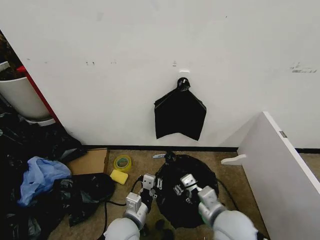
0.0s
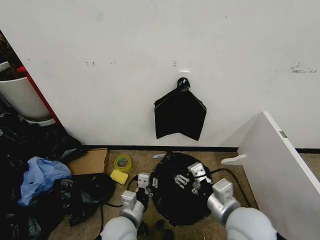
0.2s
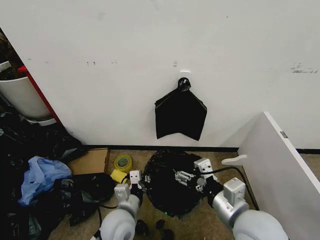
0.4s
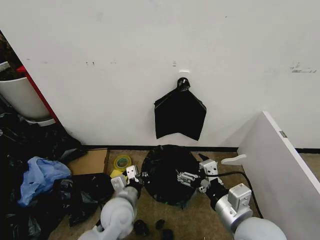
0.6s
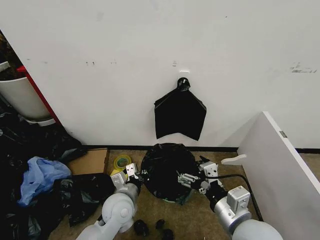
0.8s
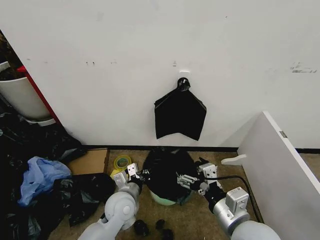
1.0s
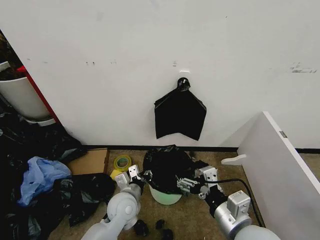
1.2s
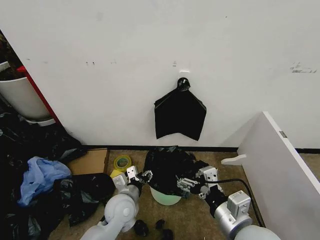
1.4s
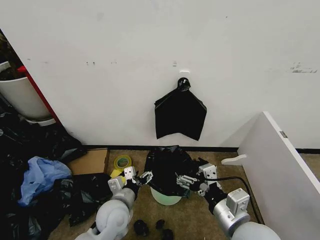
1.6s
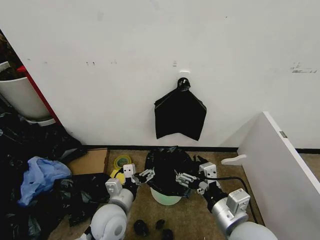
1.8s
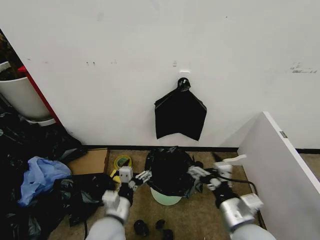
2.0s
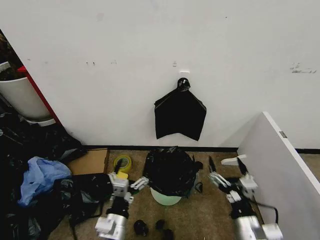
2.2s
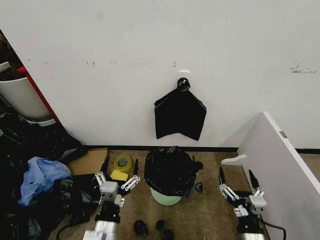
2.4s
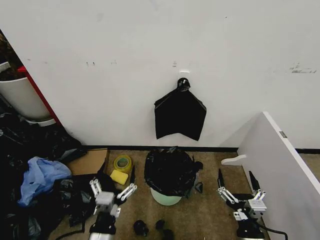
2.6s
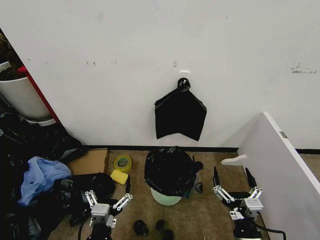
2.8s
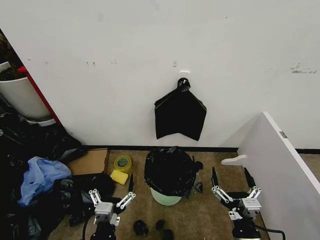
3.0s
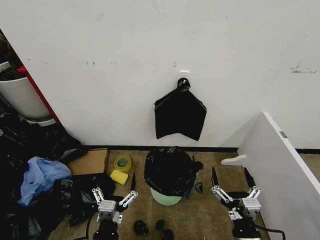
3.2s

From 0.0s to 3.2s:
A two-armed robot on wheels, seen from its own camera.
Task of the whole recording: Place the garbage bag over the trash bin.
From 0.0s to 1.6s: The right gripper is displaced upward by roughly 5 cm, and opens its fingers. The left gripper is displaced forward by approximately 5 cm, and opens.
From 1.6s to 3.2s: The left gripper is displaced backward by approximately 15 cm; the right gripper heads downward and backward, covering roughly 15 cm.

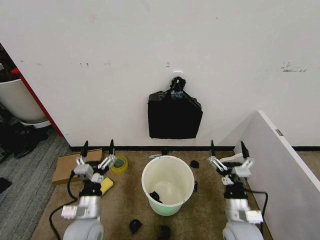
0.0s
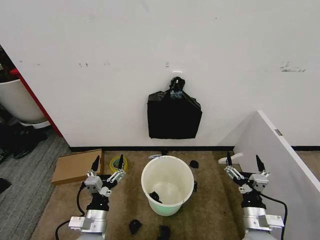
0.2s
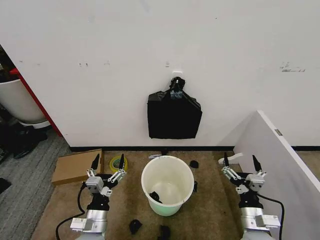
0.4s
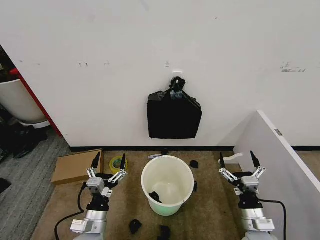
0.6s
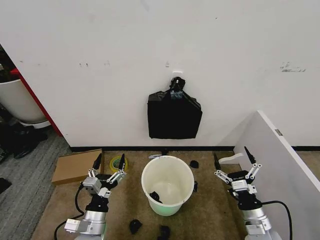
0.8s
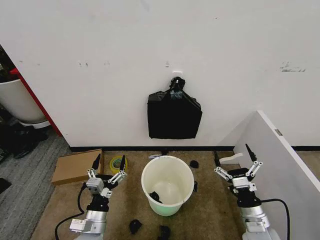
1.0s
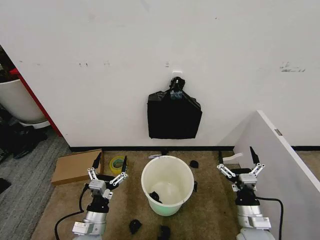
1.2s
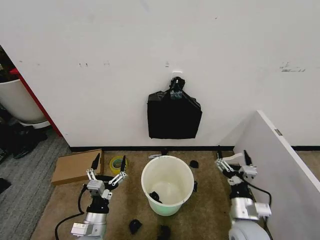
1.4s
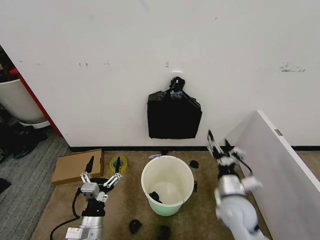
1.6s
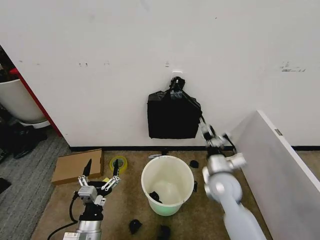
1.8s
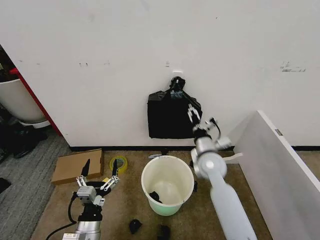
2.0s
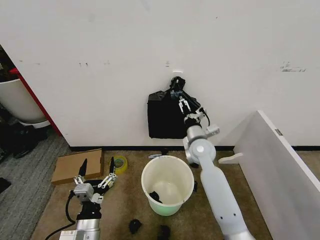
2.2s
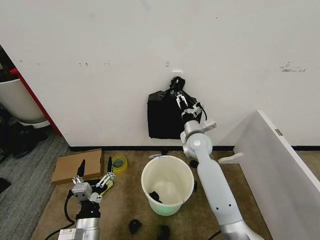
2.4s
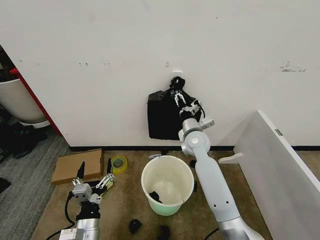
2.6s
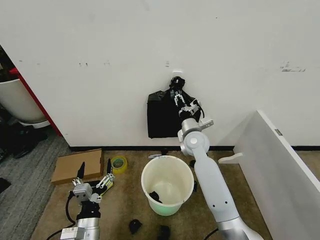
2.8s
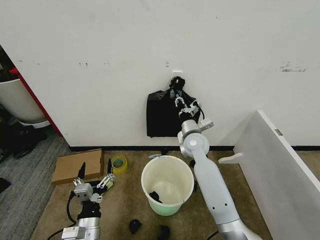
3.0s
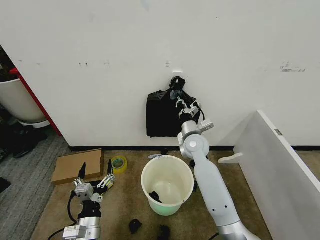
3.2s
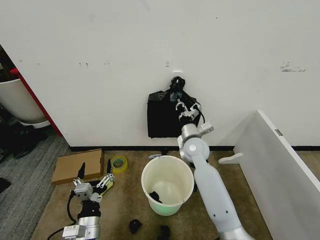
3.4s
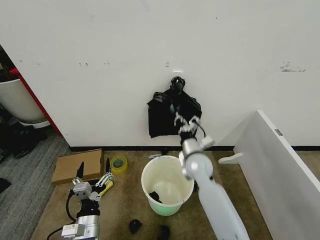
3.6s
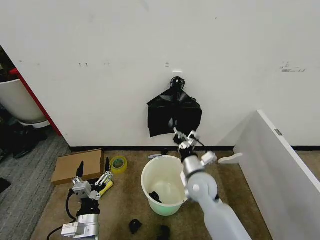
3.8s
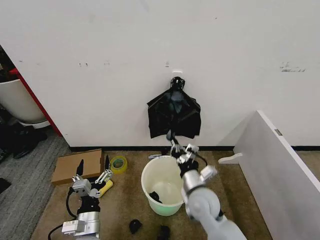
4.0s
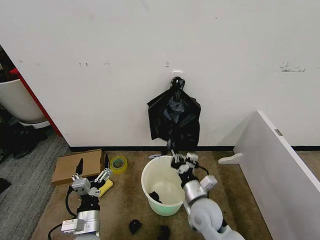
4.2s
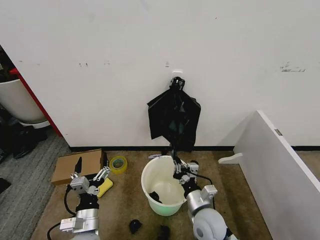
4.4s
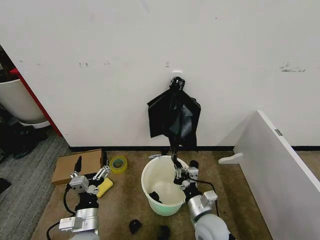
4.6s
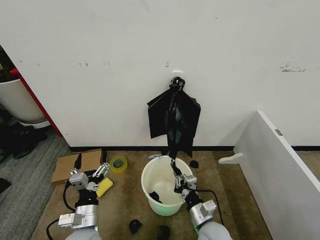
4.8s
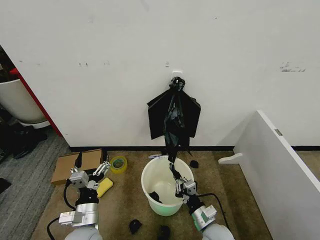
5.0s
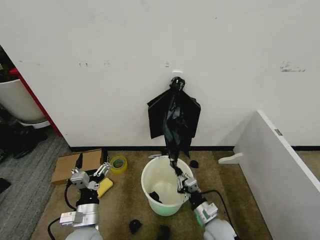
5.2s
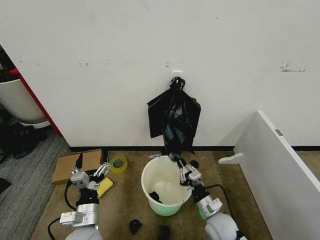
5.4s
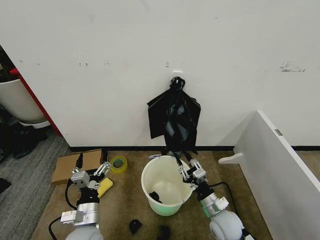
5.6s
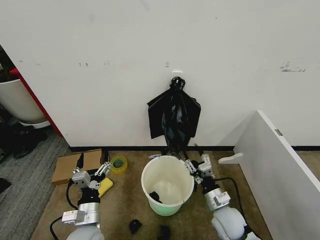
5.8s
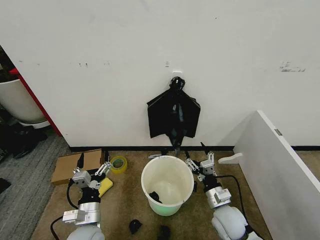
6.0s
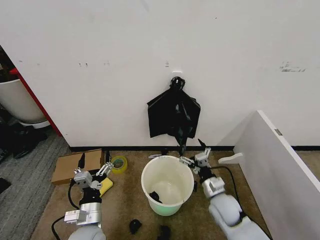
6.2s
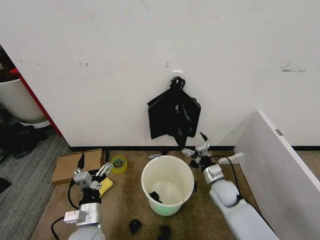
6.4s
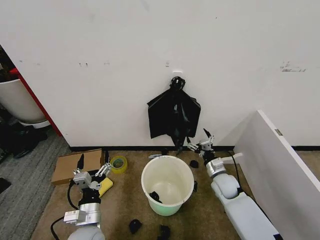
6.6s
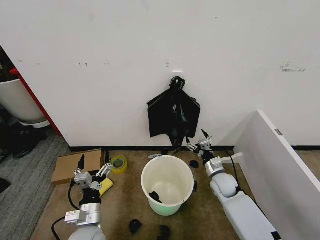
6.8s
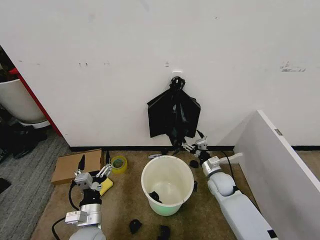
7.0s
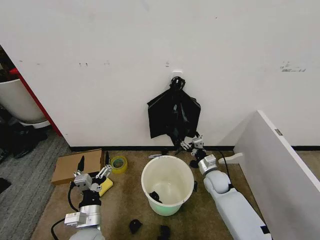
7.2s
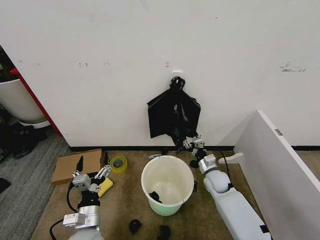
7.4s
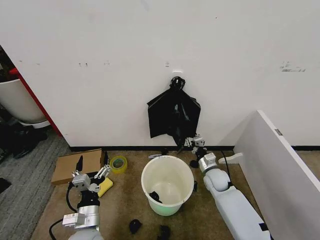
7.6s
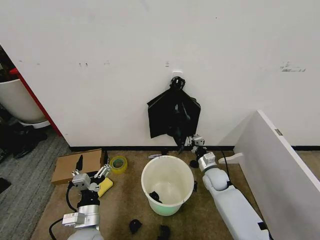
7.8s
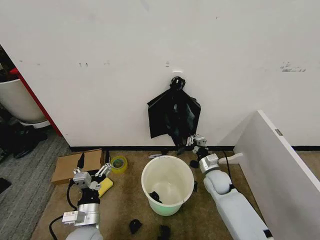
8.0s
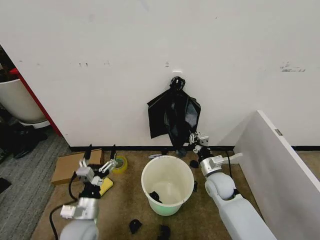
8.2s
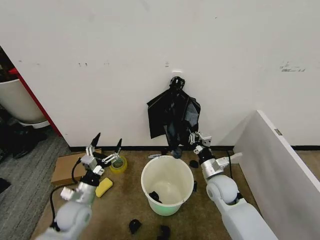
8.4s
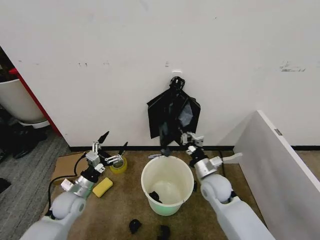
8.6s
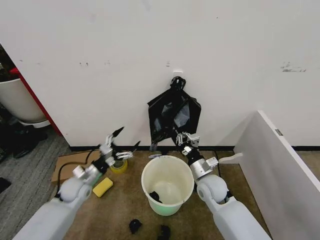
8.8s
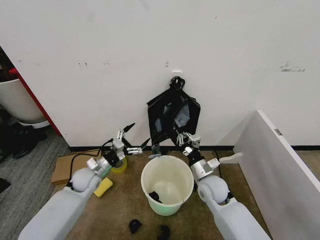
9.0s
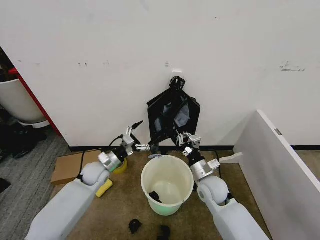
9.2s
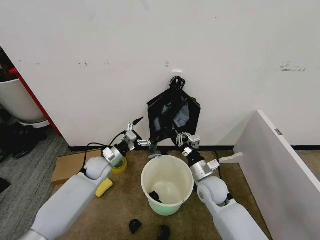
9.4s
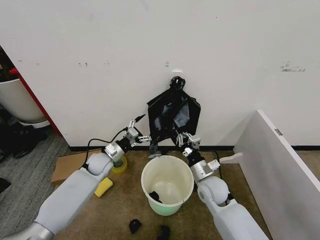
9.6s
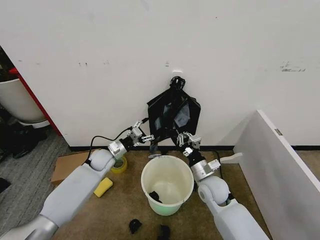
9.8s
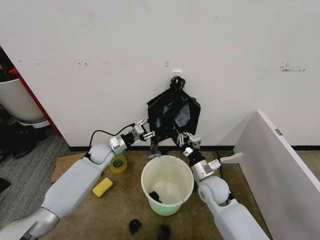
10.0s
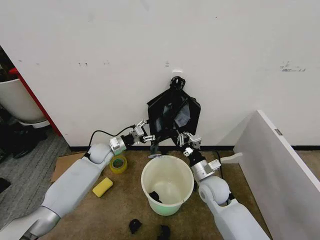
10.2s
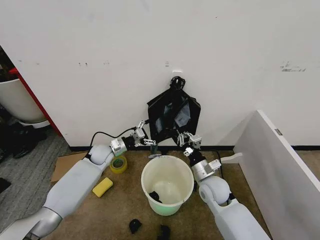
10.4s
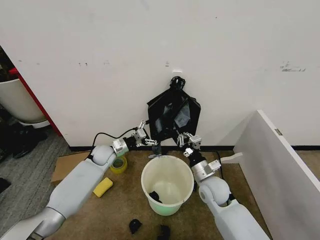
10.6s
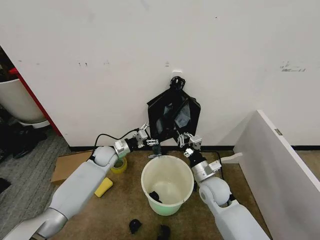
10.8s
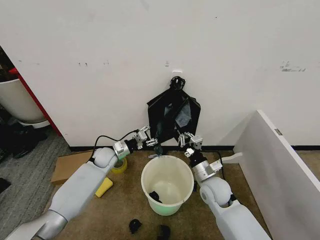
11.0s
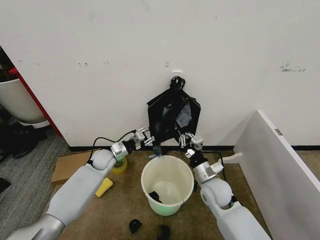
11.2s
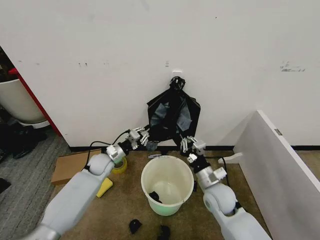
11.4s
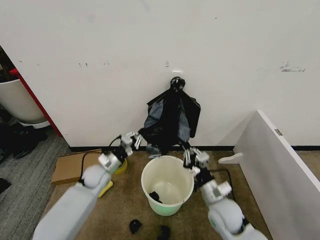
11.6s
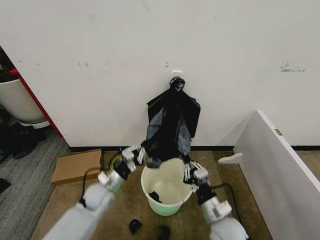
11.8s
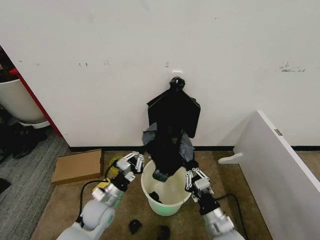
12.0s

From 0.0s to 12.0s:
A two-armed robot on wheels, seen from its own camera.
Task of the whole recording: Place the garbage bag over the trash bin.
From 1.6s to 3.0s: The right gripper shifts some 25 cm forward and to the left, and closes its fingers.
From 3.0s to 4.4s: The right gripper moves backward and downward, approximately 25 cm.
From 4.4s to 6.0s: The right gripper moves to the right, about 5 cm, and opens up.
From 6.0s to 7.6s: The right gripper heads forward, covering roughly 15 cm, and closes up.
From 7.6s to 9.0s: The right gripper heads upward, backward and to the left, covering about 10 cm; the left gripper shifts some 20 cm forward.
From 9.0s to 10.4s: The left gripper is displaced forward by approximately 10 cm, and closes, then opens again.
From 10.4s to 12.0s: The two grippers go some 20 cm backward. The left gripper closes up.

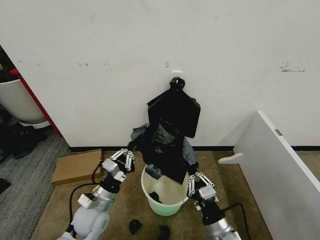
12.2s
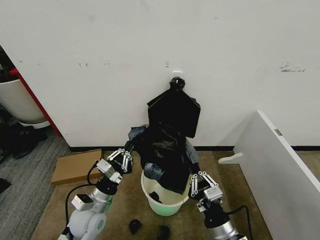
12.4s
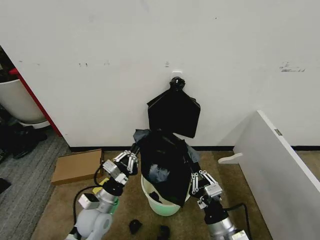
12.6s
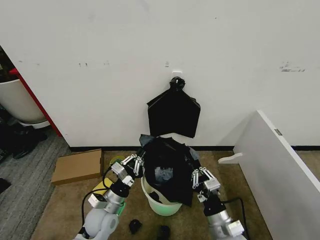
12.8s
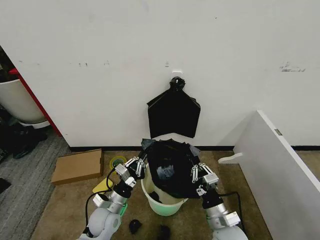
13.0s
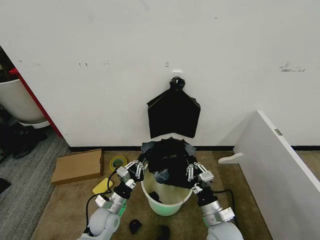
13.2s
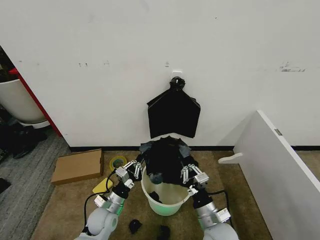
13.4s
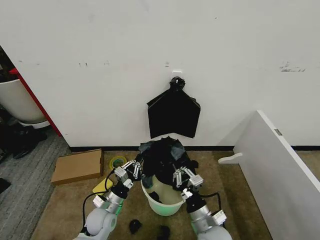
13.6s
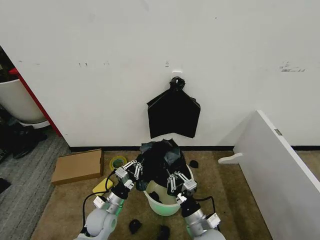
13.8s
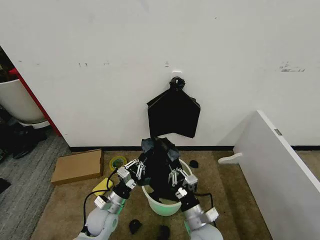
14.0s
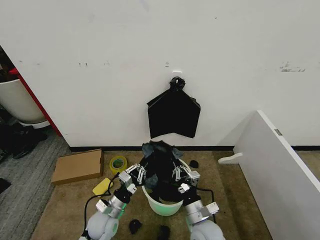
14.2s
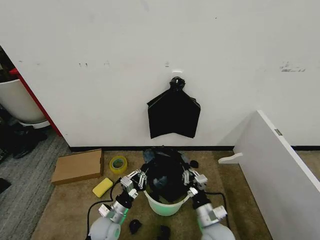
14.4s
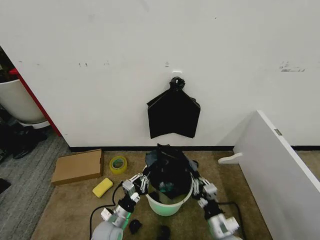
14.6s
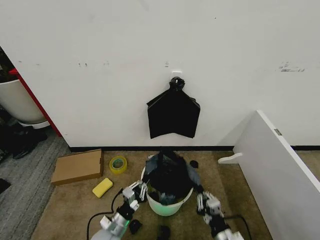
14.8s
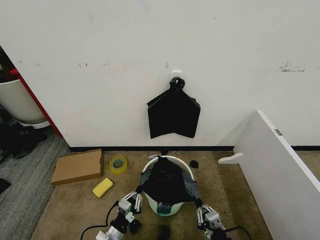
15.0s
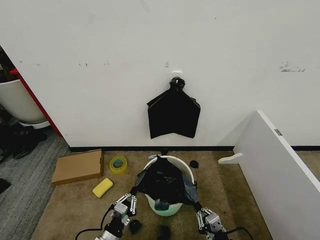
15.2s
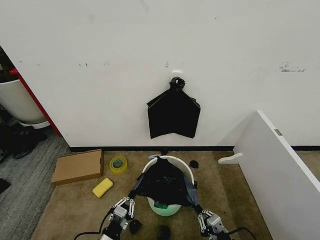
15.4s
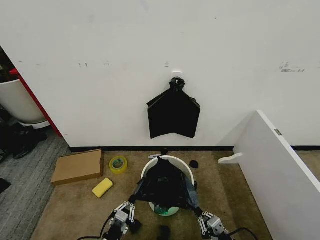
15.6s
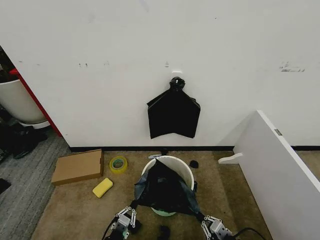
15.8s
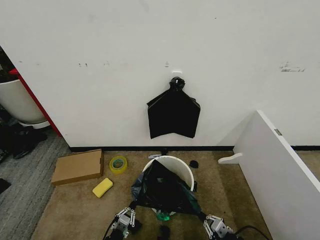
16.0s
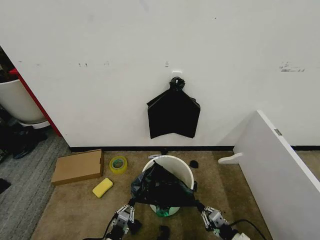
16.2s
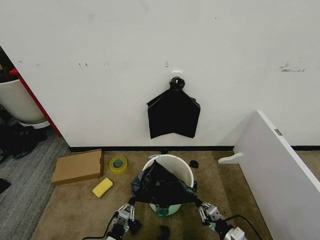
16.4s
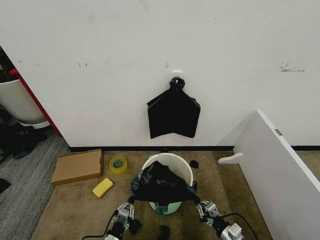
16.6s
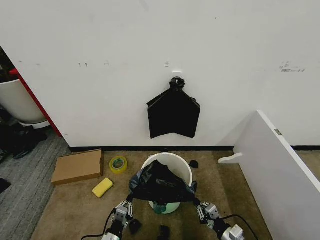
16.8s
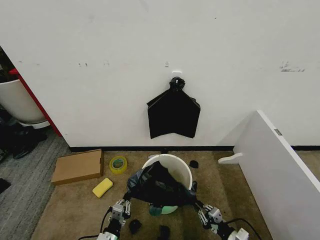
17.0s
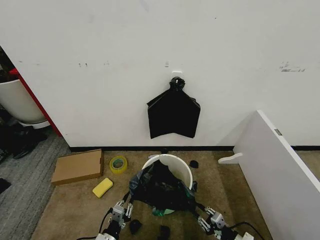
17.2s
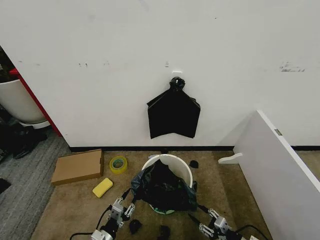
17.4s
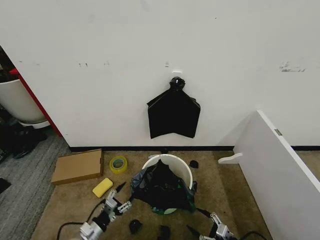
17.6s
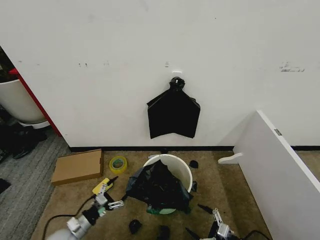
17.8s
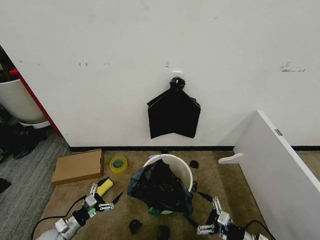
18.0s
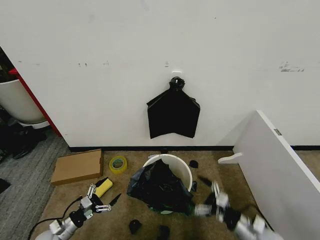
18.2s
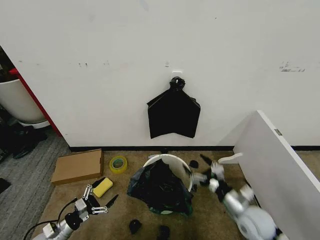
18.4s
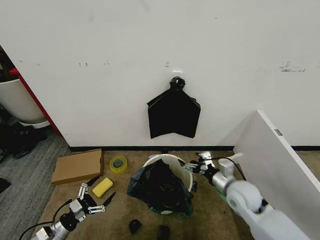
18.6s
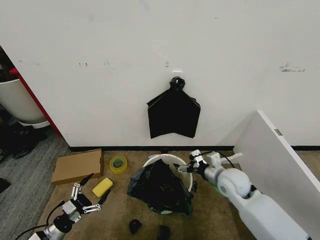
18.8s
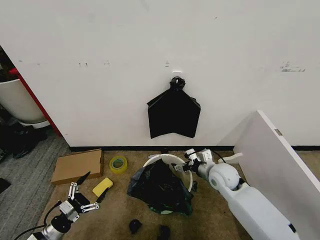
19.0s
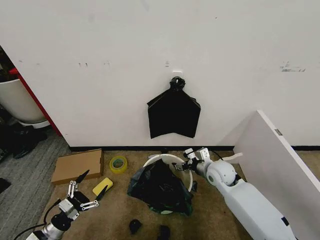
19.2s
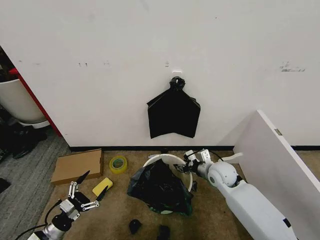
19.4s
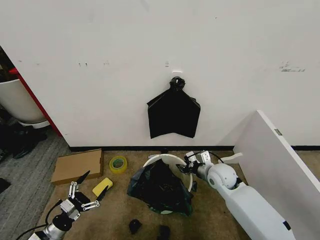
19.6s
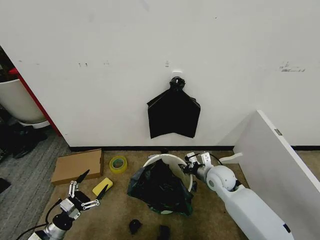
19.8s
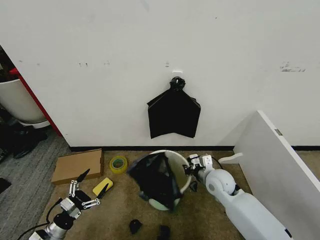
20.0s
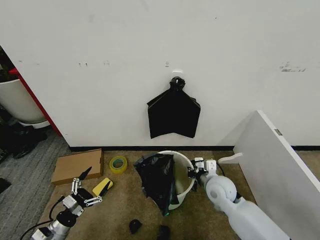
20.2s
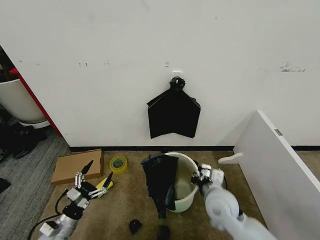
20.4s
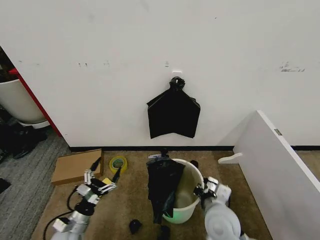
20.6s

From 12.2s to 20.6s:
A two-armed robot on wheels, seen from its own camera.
Task of the whole recording: Place the garbage bag over the trash bin.
From 12.2s to 13.6s: The left gripper travels downward by some 10 cm. Meanwhile the right gripper shifts by roughly 5 cm.
From 13.6s to 15.0s: The left gripper shifts roughly 10 cm backward and downward. The right gripper moves backward and to the right, approximately 15 cm.
From 15.0s to 16.4s: The left gripper changes place by roughly 5 cm. Meanwhile the right gripper goes approximately 10 cm to the right, forward and downward.
From 16.4s to 17.8s: The left gripper is displaced to the left and forward by roughly 15 cm, and opens; the right gripper changes place by some 5 cm, and opens.
From 17.8s to 19.2s: The right gripper goes roughly 30 cm forward, to the left and upward. The left gripper travels to the left by some 5 cm.
From 19.2s to 20.6s: The left gripper travels to the right by roughly 10 cm. The right gripper travels backward by about 15 cm, and closes.
